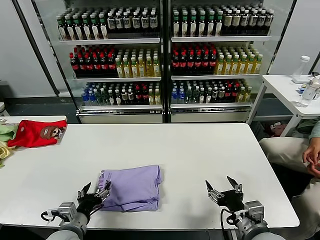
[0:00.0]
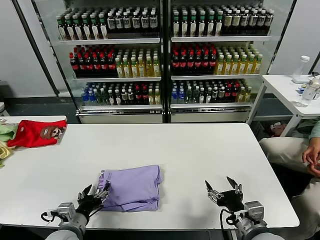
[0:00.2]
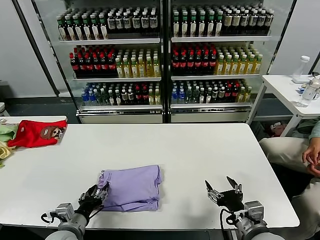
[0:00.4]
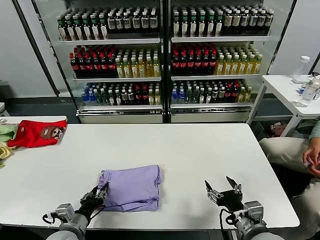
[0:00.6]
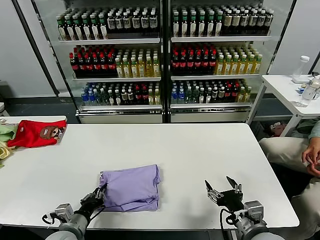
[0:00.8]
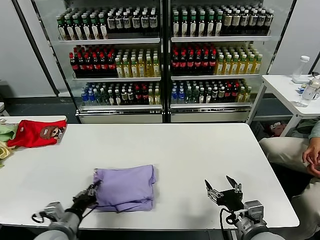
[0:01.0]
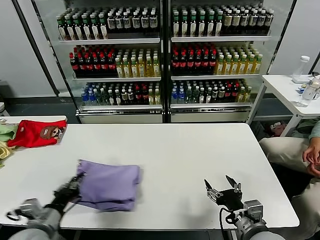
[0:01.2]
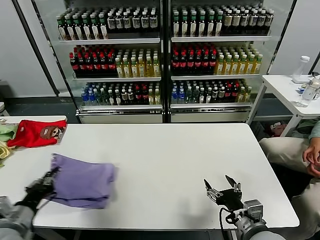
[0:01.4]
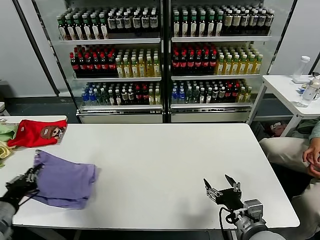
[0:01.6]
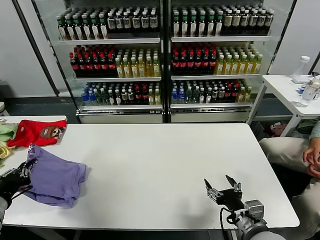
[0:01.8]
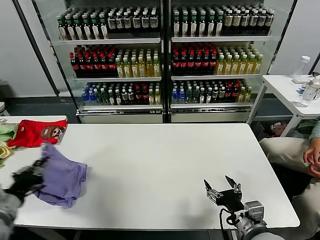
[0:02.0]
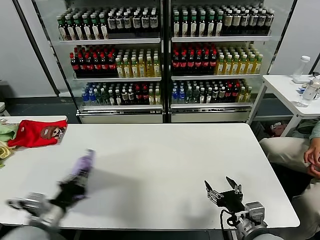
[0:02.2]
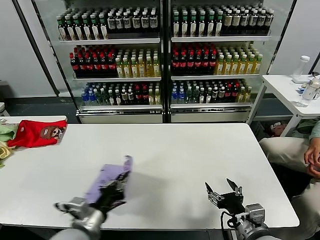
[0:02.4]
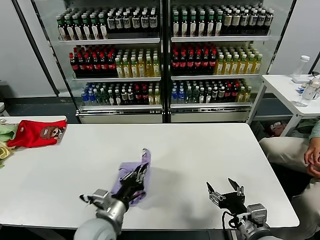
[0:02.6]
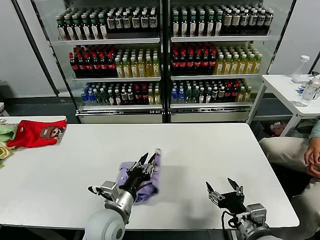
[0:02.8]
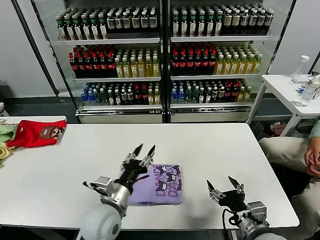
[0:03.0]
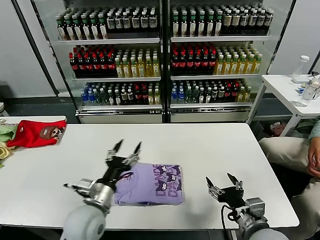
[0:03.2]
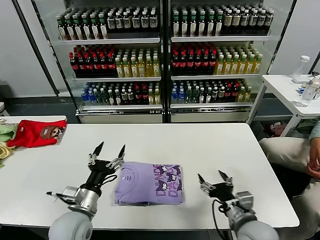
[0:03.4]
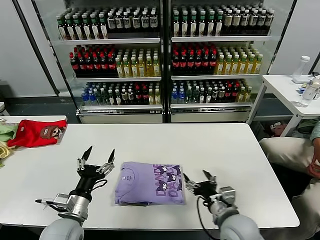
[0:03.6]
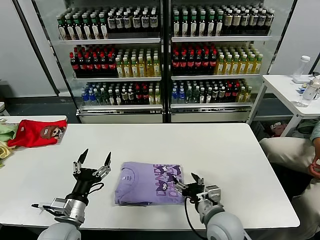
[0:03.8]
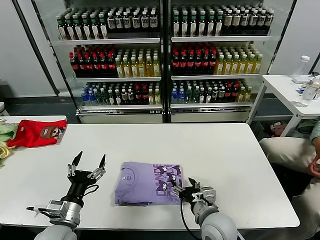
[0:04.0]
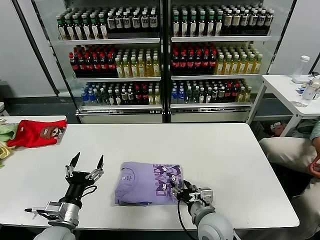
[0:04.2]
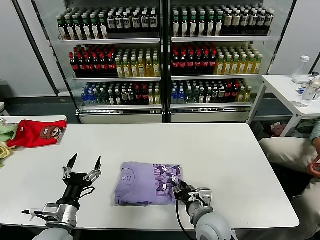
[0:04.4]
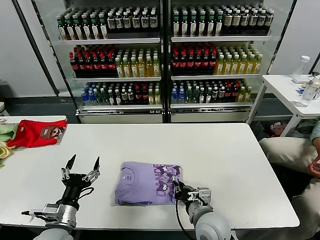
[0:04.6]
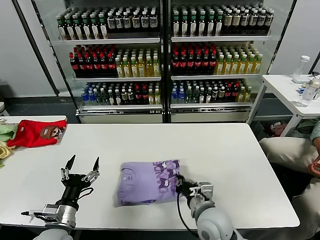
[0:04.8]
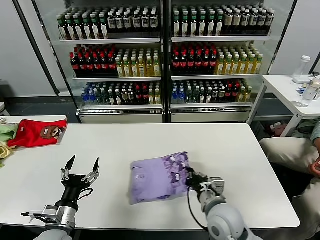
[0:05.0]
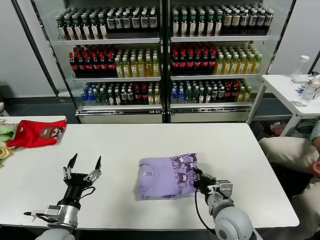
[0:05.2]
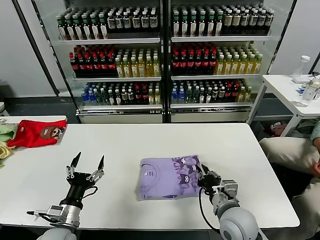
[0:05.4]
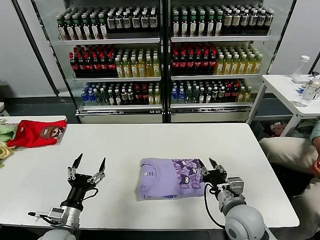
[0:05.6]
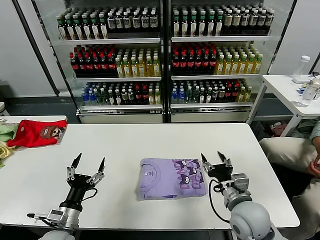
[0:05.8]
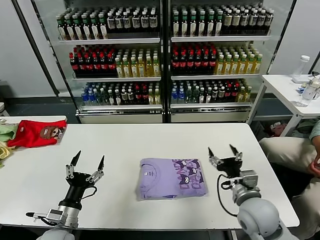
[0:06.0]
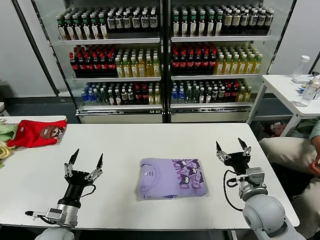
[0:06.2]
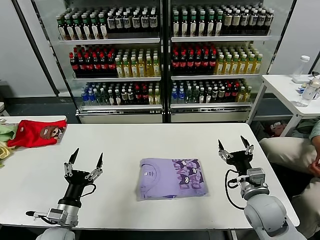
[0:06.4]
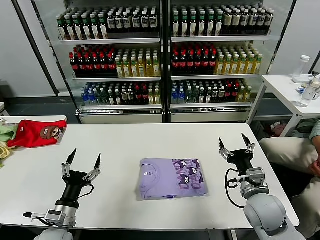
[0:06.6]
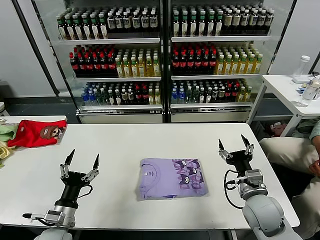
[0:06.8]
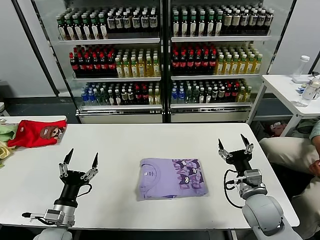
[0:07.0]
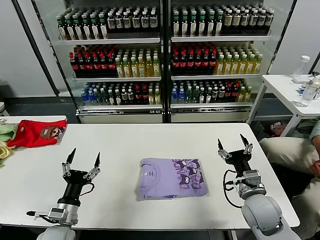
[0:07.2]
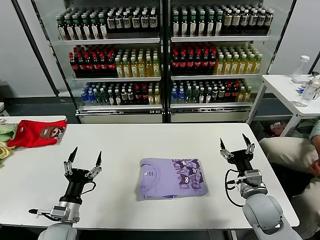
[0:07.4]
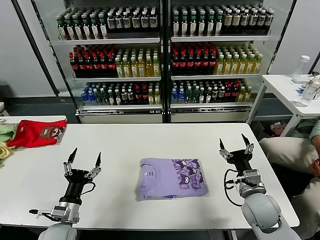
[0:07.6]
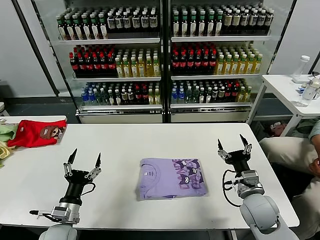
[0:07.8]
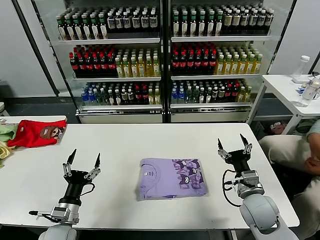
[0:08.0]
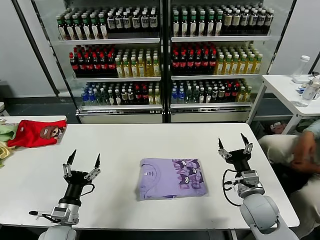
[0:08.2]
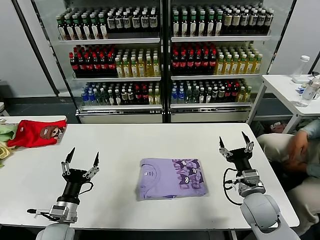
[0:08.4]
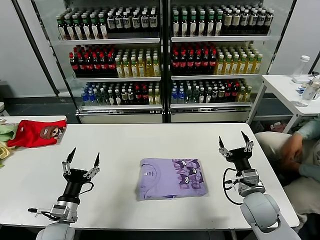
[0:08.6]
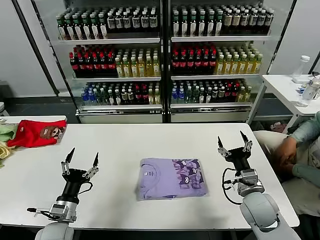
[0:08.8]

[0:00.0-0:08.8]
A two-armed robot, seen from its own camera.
Task of the whole recording: fold and organize the clothes.
Step, 0:00.0 to 0:03.0: Flip the folded clothes over with left gripper.
Step, 0:03.2 to 0:05.6: Drag the clothes to the center of the table.
0:00.0 to 0:01.4: The left gripper travels to the left and upward by some 15 cm, and closes up.
0:01.4 to 0:03.0: The left gripper is displaced to the right by roughly 20 cm, and opens its fingers.
0:03.0 to 0:04.4: The left gripper heads to the left, covering about 15 cm, and opens up. The right gripper goes some 15 cm to the left and forward, and closes up.
0:04.4 to 0:05.8: The right gripper goes approximately 10 cm to the right, and closes, then opens again.
0:05.8 to 0:07.4: The right gripper is displaced to the right by about 5 cm.
0:07.4 to 0:08.8: Both grippers stay put.
